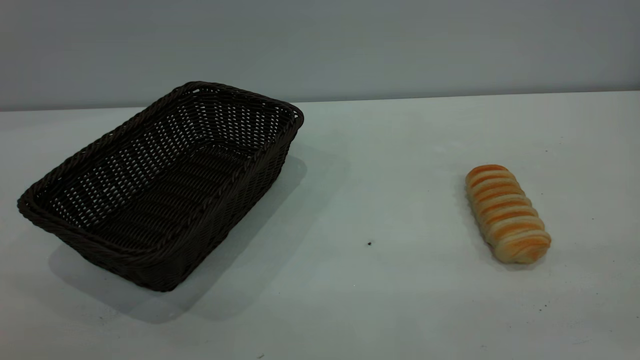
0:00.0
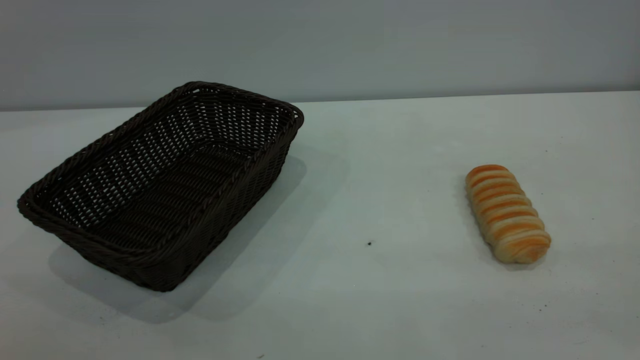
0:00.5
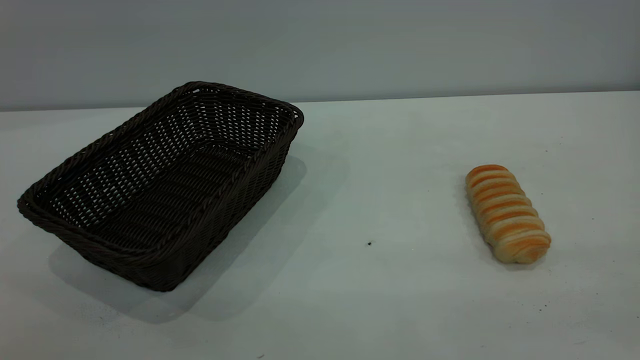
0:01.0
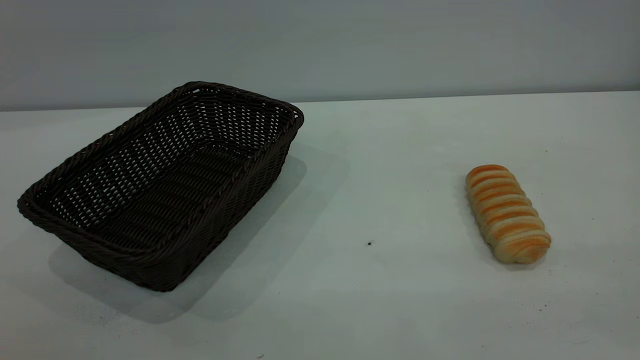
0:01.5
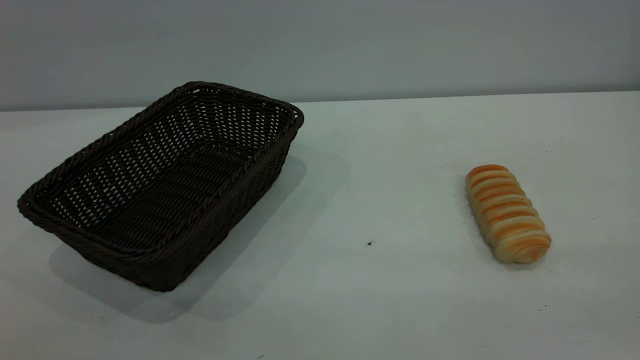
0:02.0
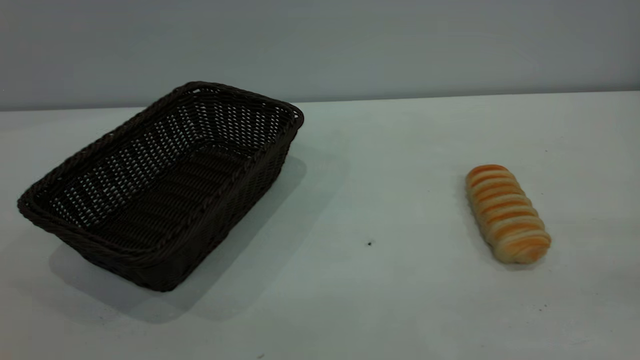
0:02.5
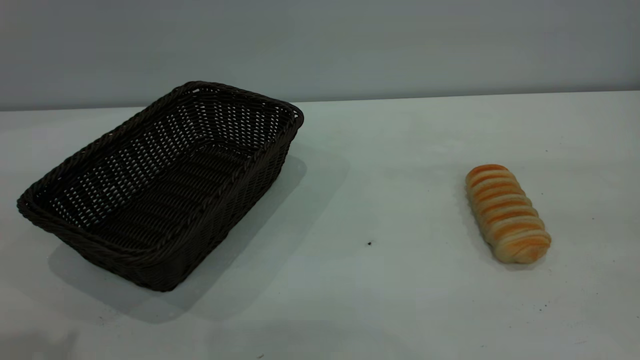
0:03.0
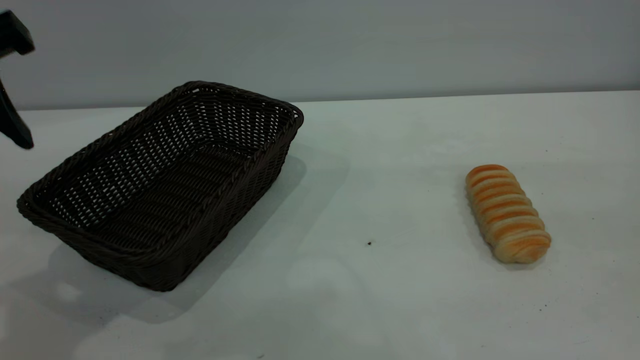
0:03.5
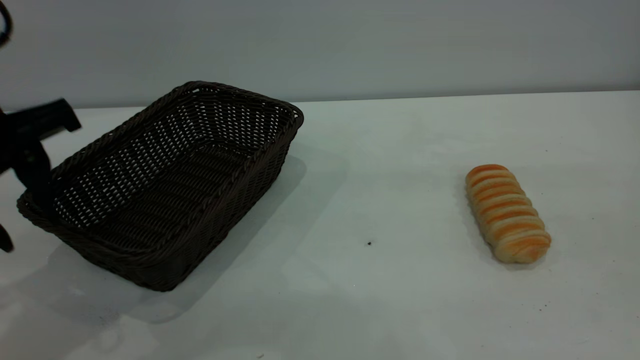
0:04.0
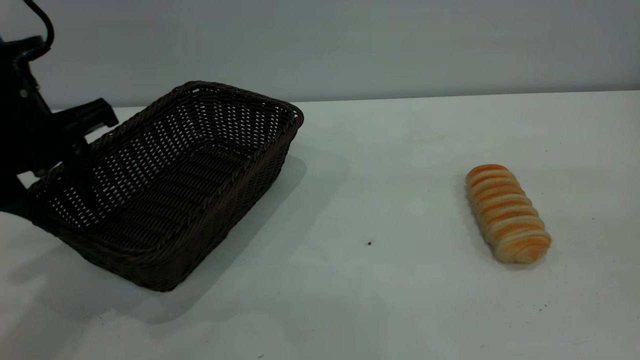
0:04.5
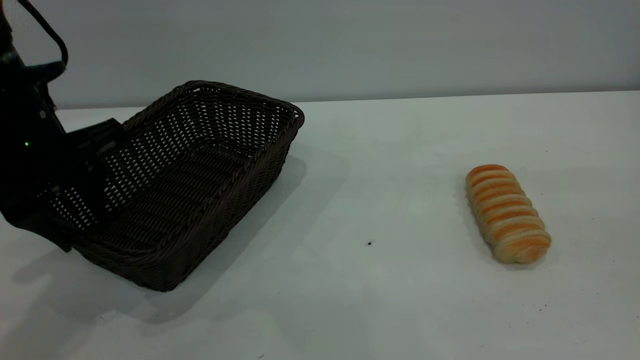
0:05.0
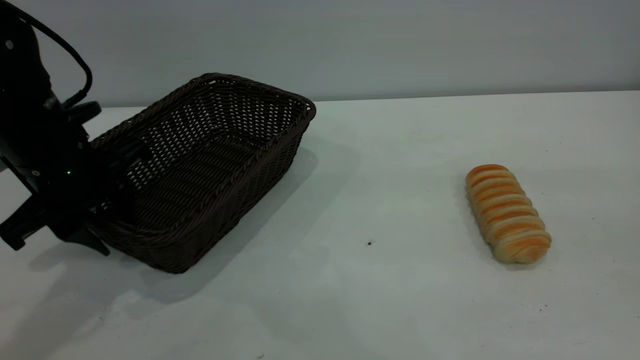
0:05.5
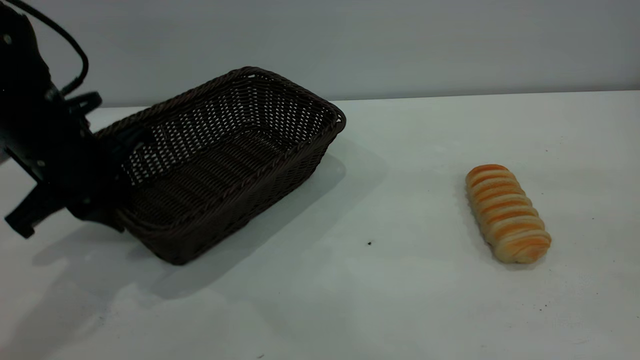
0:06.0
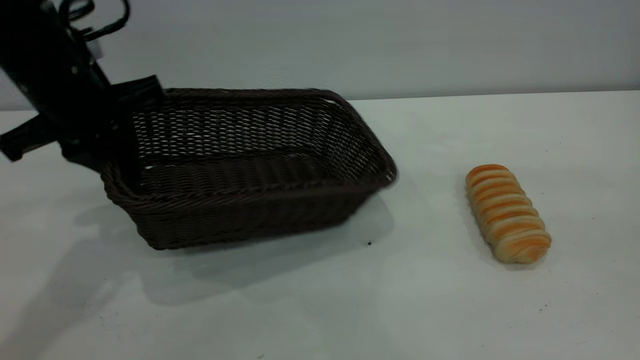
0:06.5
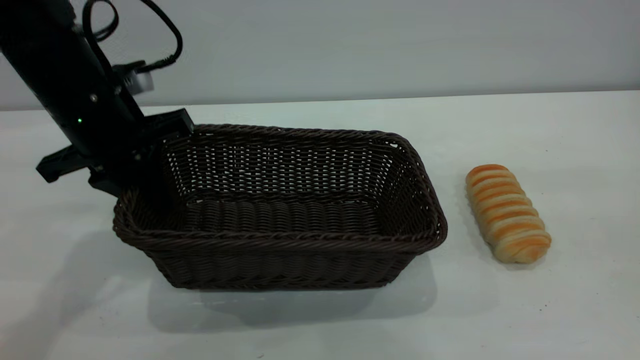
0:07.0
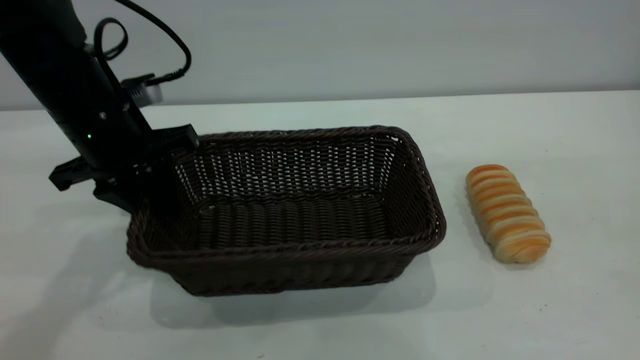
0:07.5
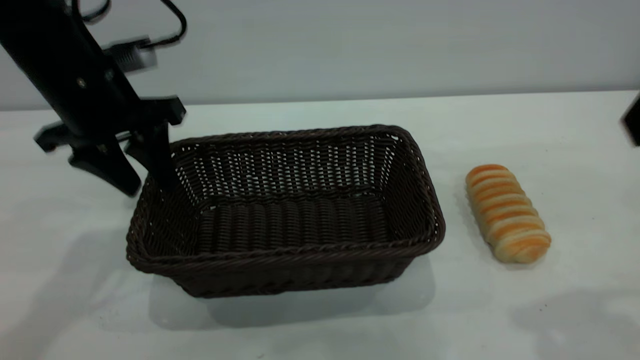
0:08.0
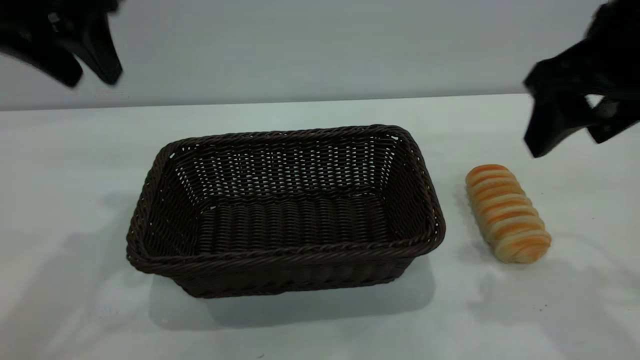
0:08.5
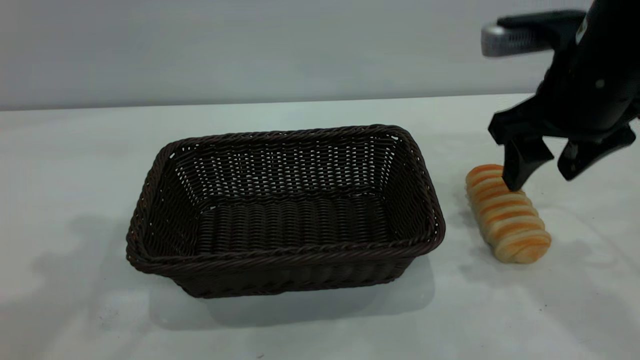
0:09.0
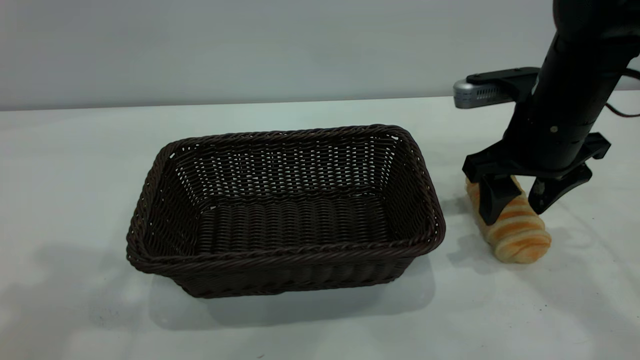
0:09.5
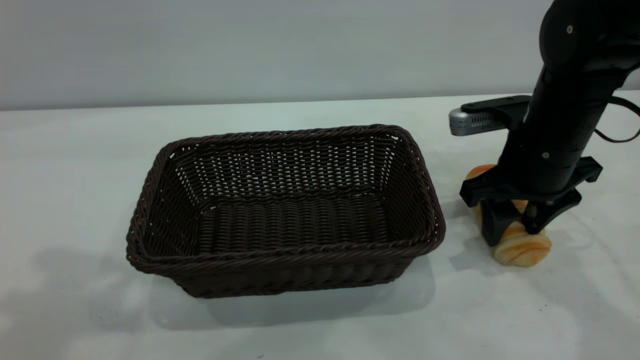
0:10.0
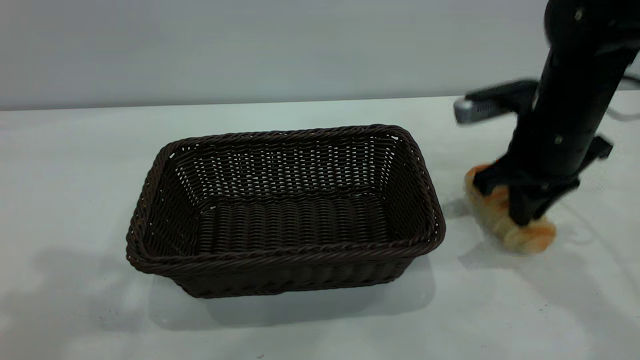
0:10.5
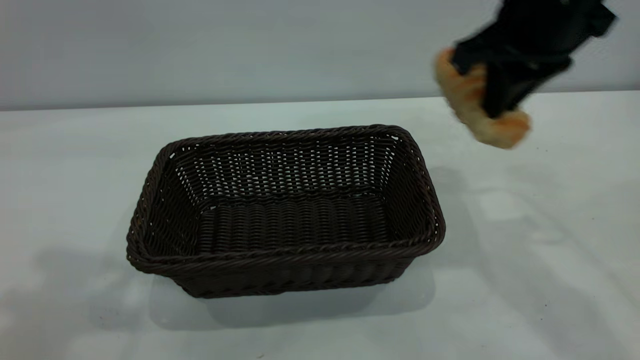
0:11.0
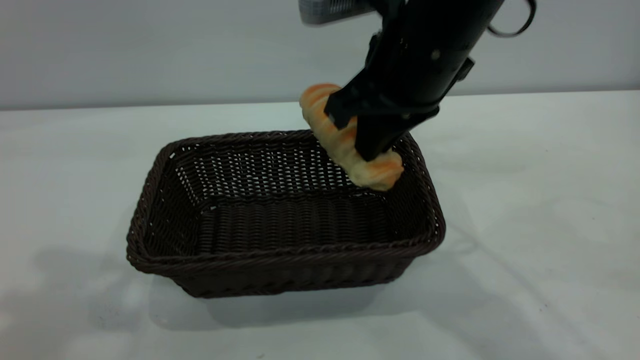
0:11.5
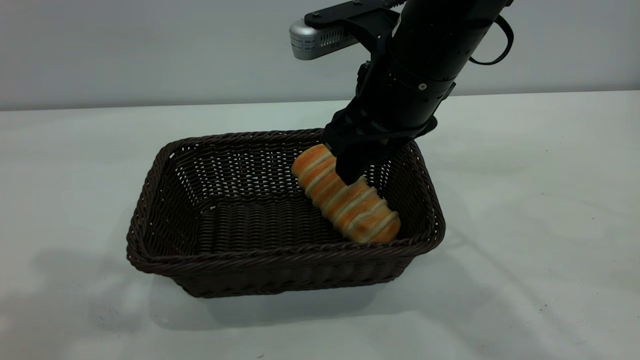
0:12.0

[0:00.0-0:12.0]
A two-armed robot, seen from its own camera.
Task of the whole recording: One hand grasps the black basket and places it in the middle of the table, while the other hand picks up the long bread and puts it into the black basket.
Step, 0:00.0 to 0:08.0: Move the basket to the center of view.
0:02.0 to 0:04.0: The left gripper travels forward by about 30 cm.
0:04.0 to 0:06.0: The left gripper heads downward and forward, covering roughly 10 cm, and closes.
0:06.0 to 0:08.0: The left gripper goes up and down, some 5 cm each way, reversing 2 times, and opens up. The right gripper shifts approximately 15 cm forward and downward.
0:08.0 to 0:10.0: The right gripper goes roughly 25 cm downward and forward; the left gripper heads upward and backward, covering approximately 25 cm.
0:10.0 to 0:12.0: The right gripper travels to the left and upward by about 15 cm, and closes, then opens again.

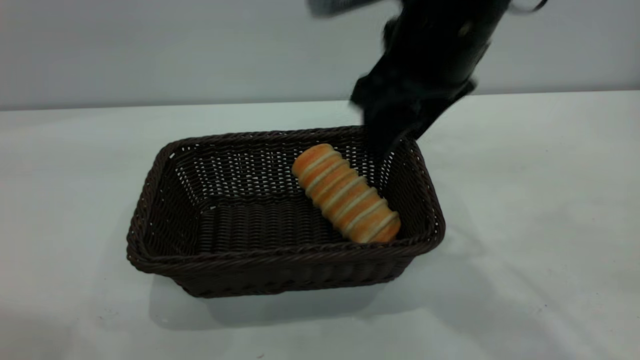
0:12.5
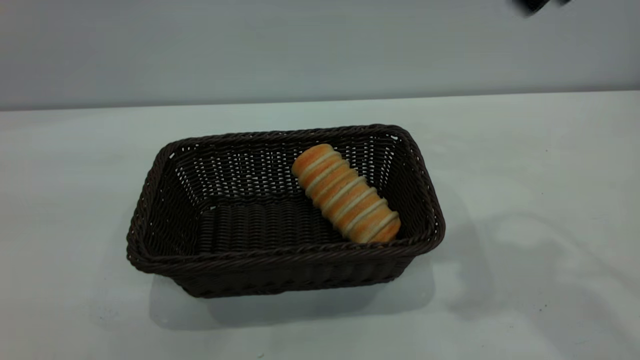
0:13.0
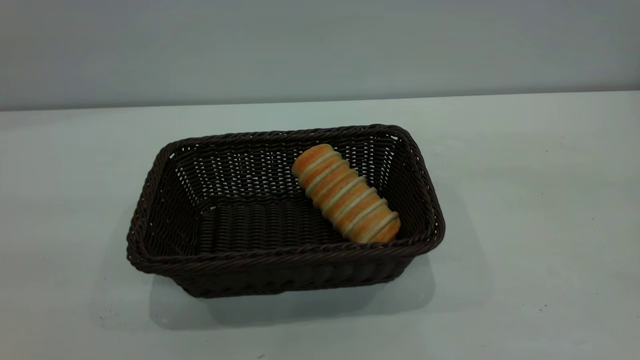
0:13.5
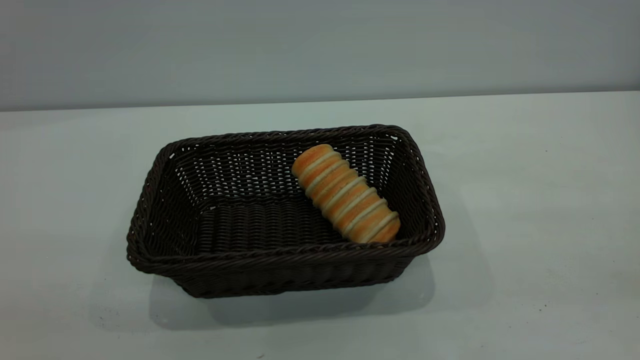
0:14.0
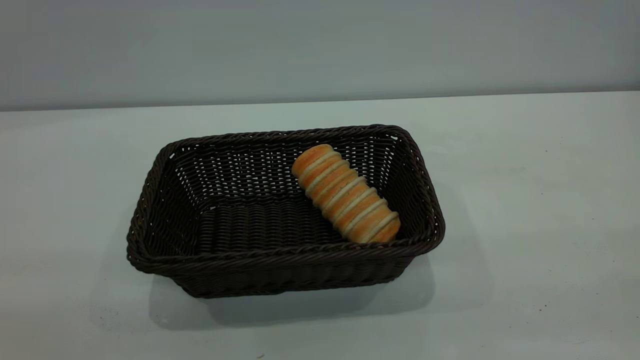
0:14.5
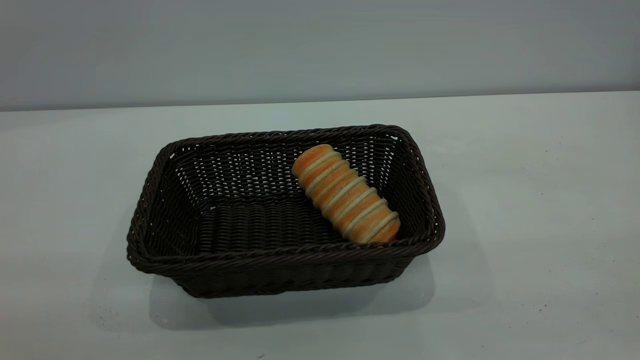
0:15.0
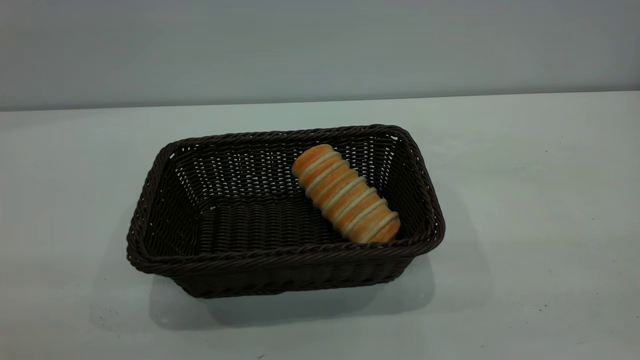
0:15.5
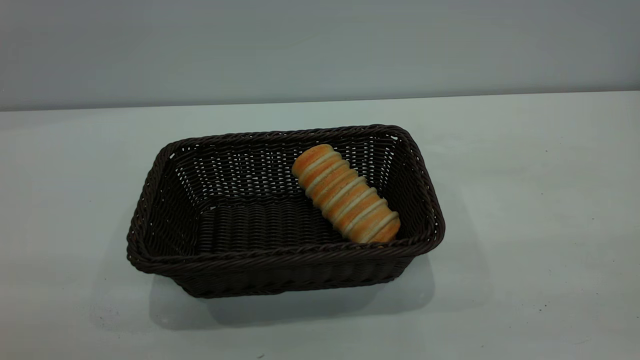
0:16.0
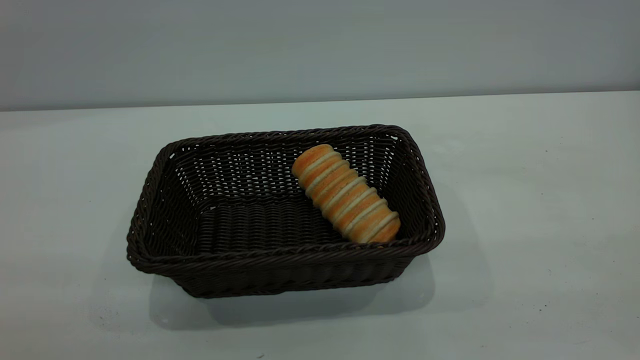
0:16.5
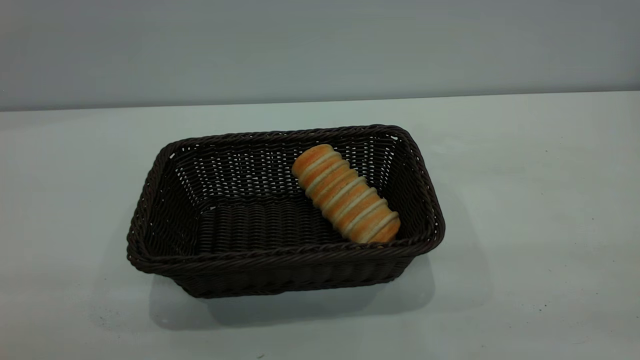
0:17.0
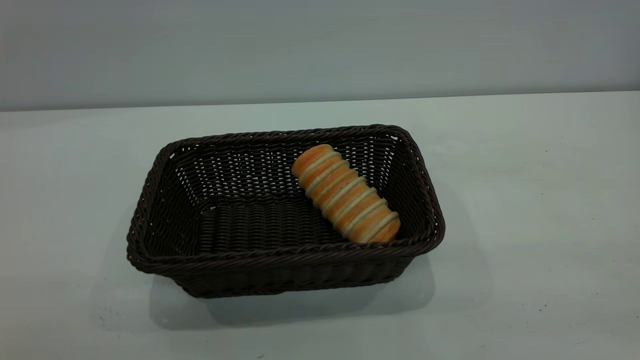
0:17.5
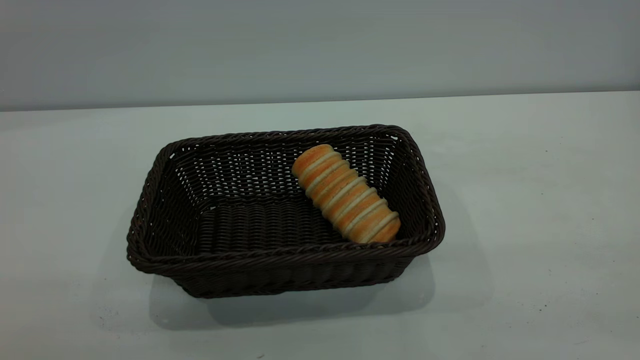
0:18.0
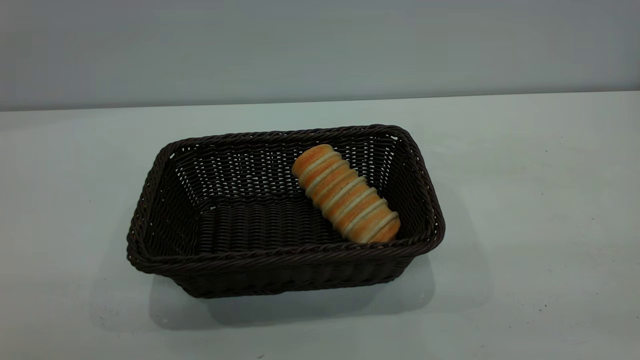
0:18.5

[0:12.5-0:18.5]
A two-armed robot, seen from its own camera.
Task of the whole recording: One hand grasps the black basket and places it in the middle of the table, while the other hand picks up the long bread and puts it into the black basket.
0:12.5 to 0:14.5: The left gripper heads backward and downward, covering about 20 cm; the right gripper moves backward and to the right, about 40 cm, and closes.

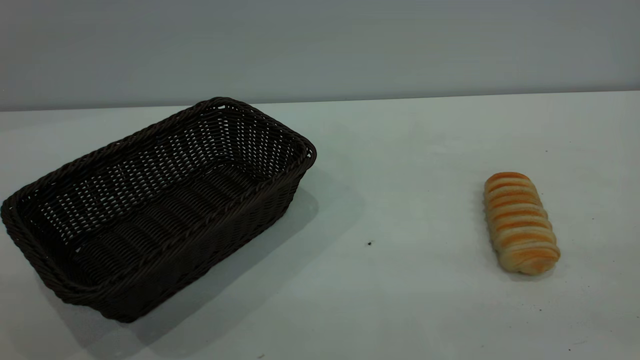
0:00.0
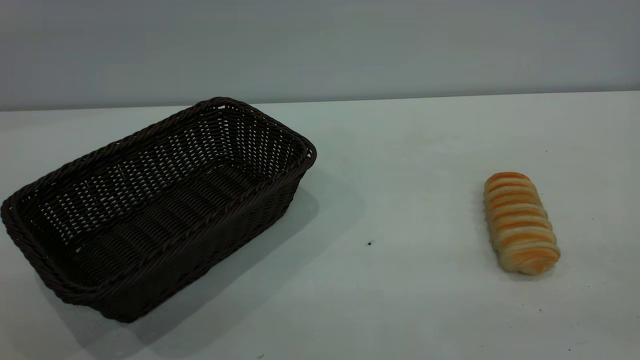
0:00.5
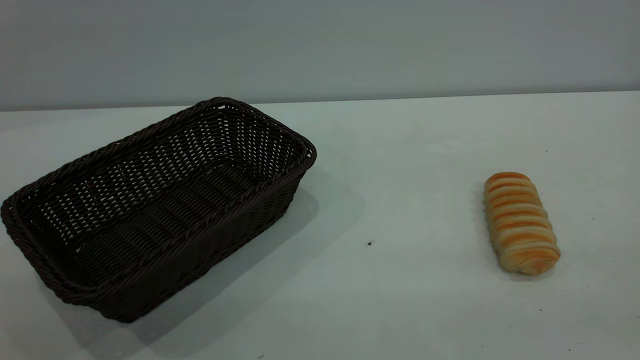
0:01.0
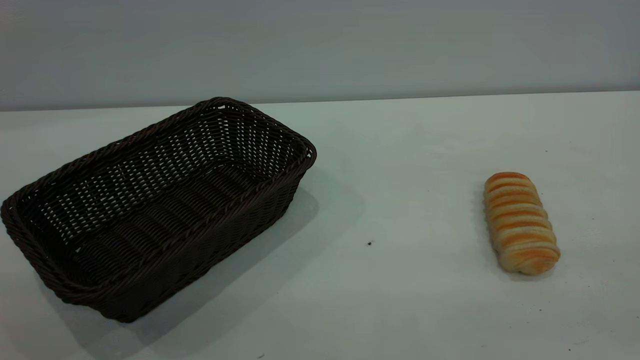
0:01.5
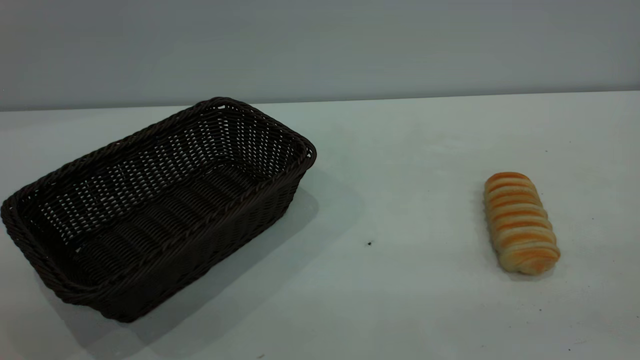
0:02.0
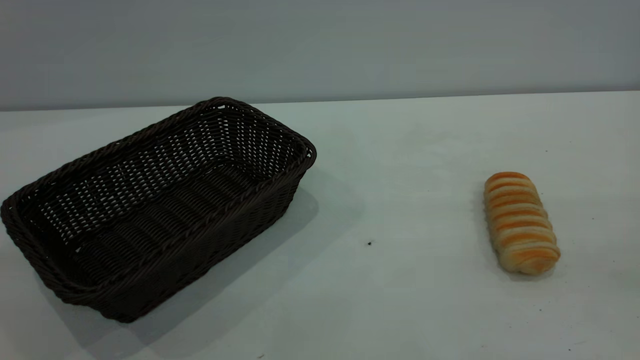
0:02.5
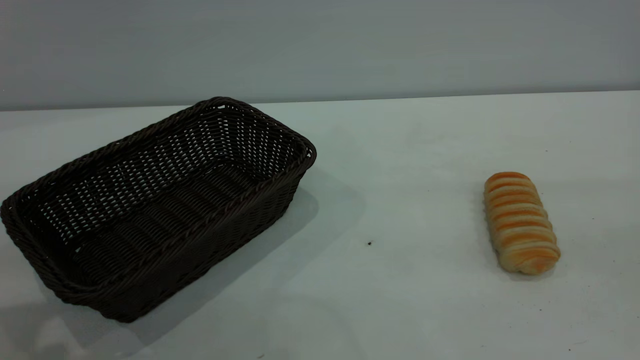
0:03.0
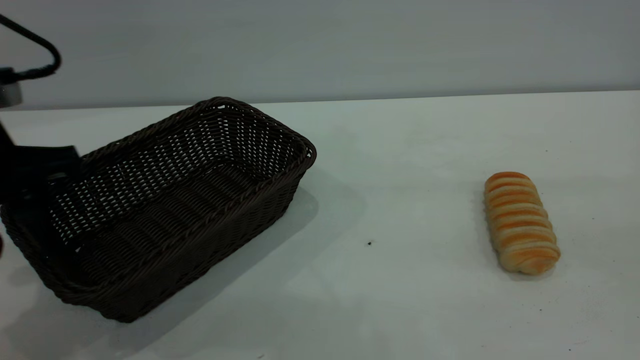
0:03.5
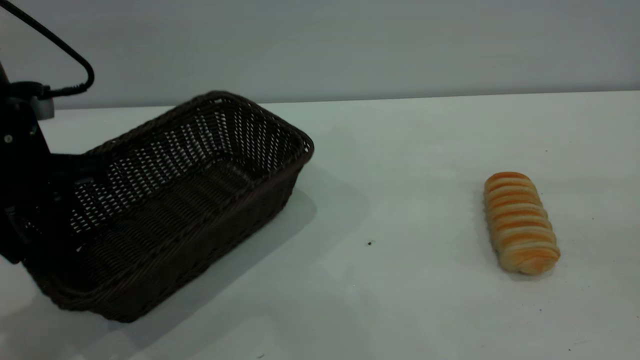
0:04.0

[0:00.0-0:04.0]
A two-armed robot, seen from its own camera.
Task of the whole recording: One hand grasps the black basket and places it in the middle of the table, while the other hand picks up the long bread and puts it into the black basket.
0:02.0 to 0:04.0: The right gripper goes roughly 10 cm forward. Meanwhile the left gripper goes approximately 35 cm forward and downward.
